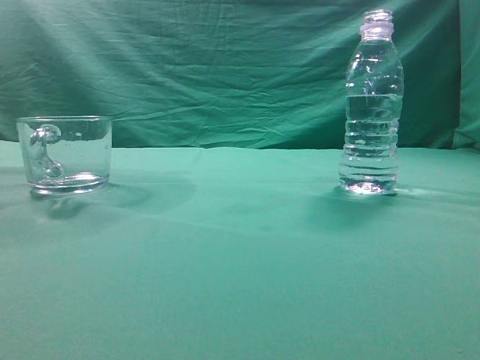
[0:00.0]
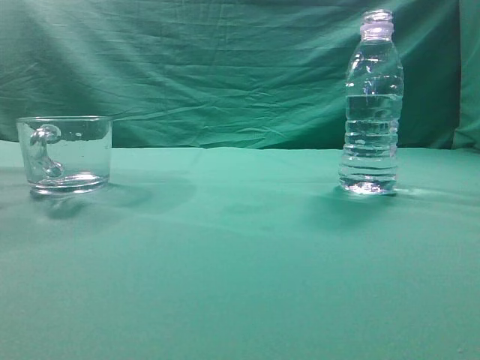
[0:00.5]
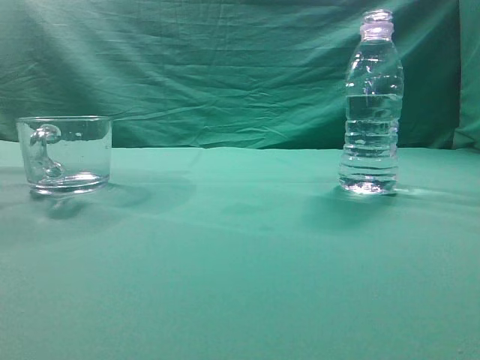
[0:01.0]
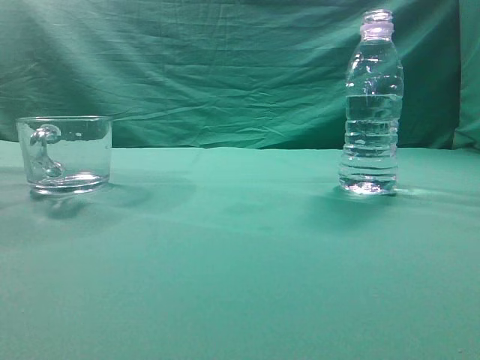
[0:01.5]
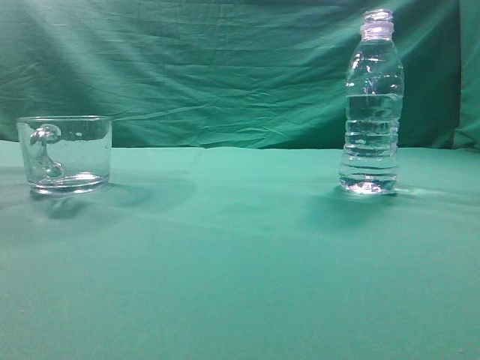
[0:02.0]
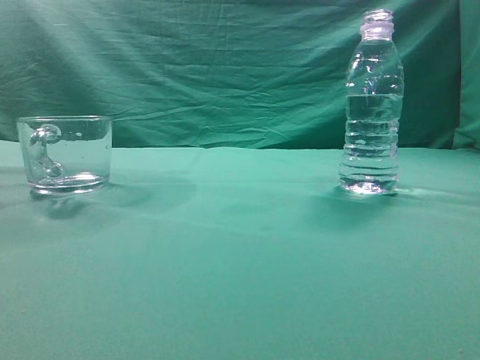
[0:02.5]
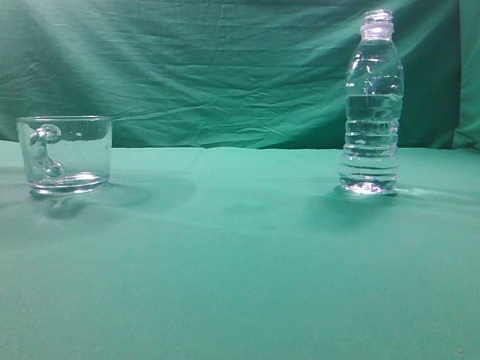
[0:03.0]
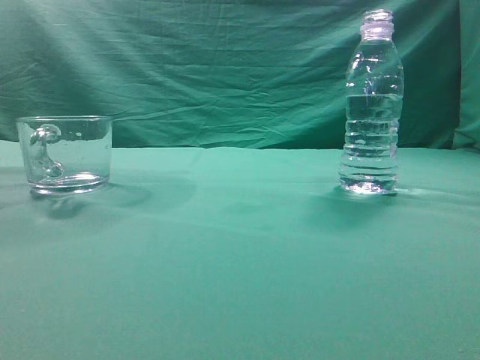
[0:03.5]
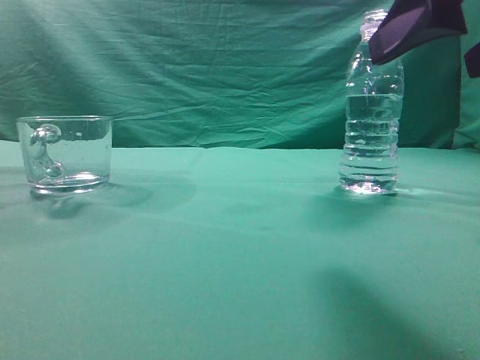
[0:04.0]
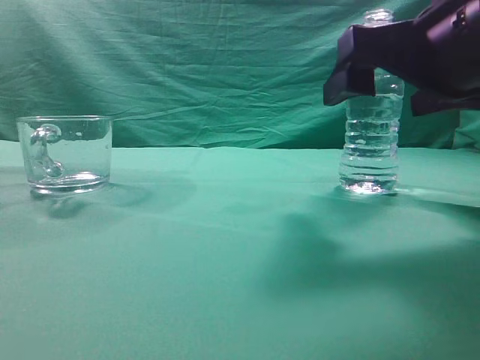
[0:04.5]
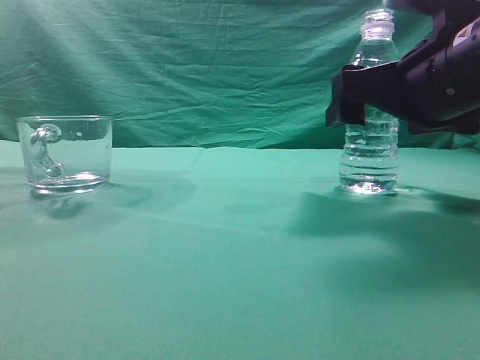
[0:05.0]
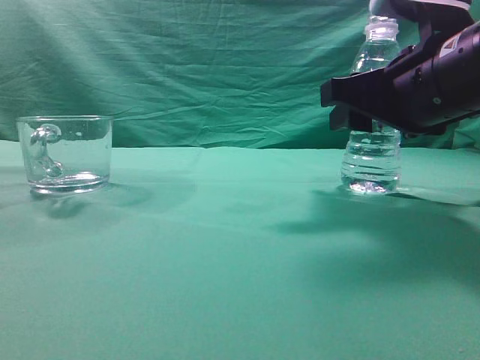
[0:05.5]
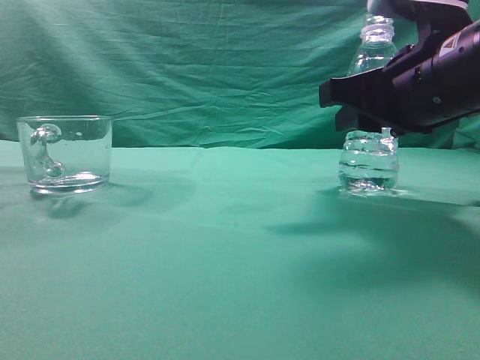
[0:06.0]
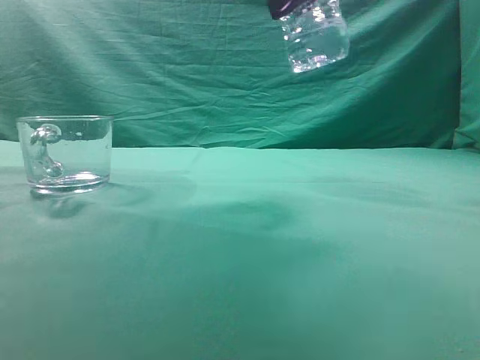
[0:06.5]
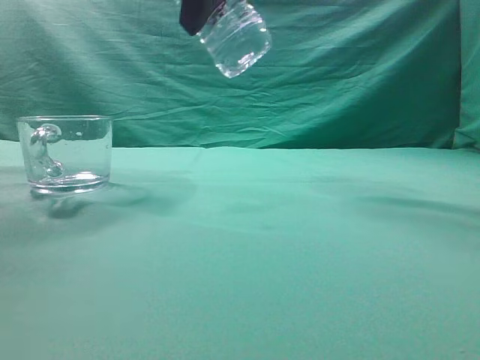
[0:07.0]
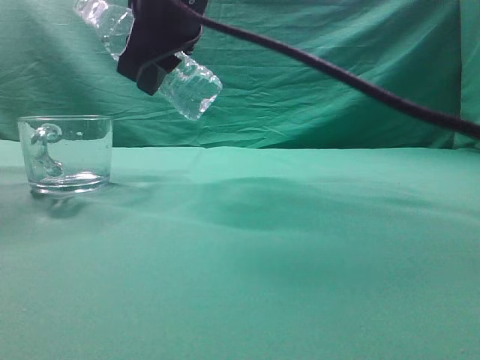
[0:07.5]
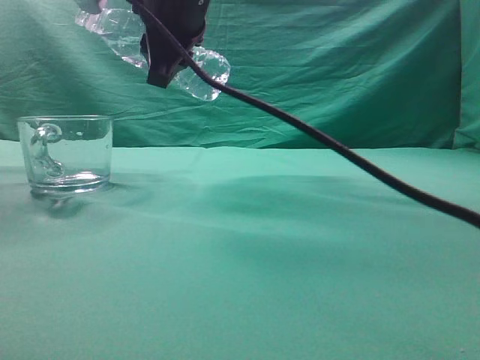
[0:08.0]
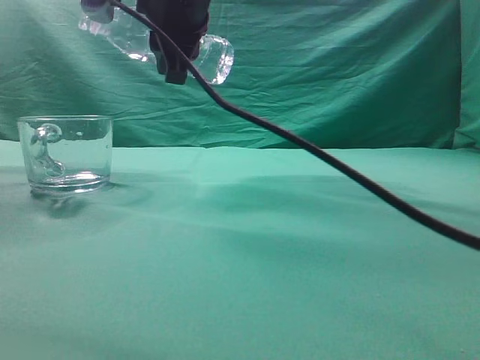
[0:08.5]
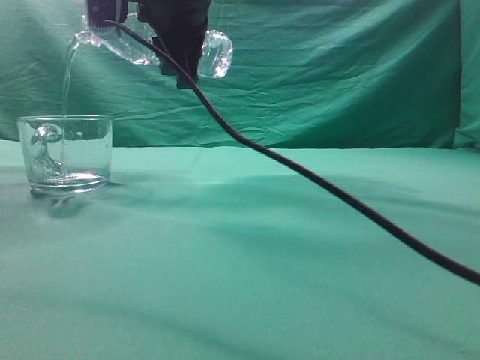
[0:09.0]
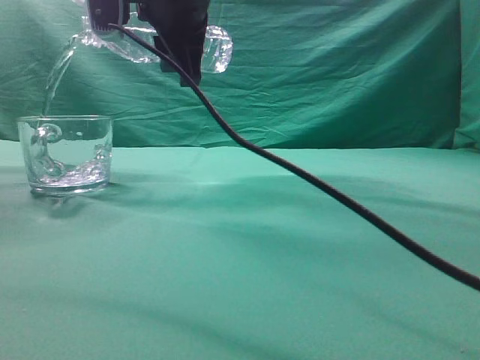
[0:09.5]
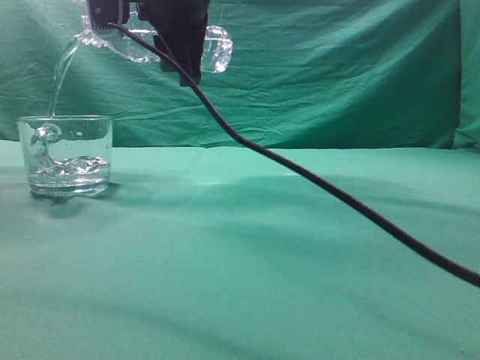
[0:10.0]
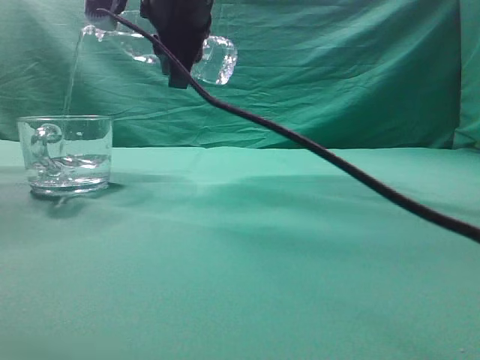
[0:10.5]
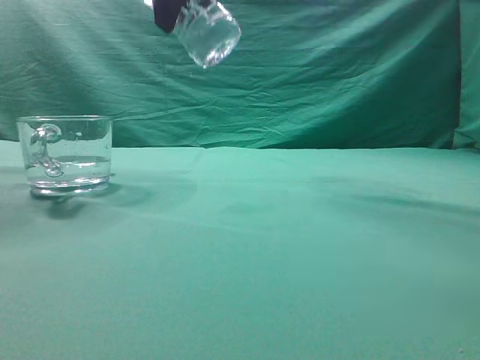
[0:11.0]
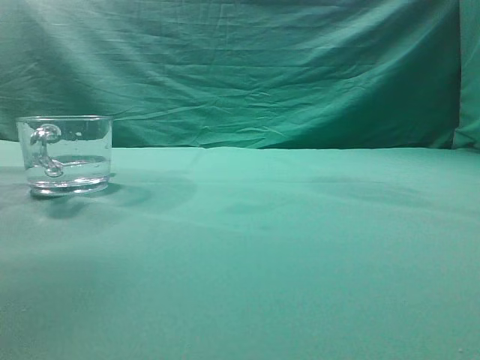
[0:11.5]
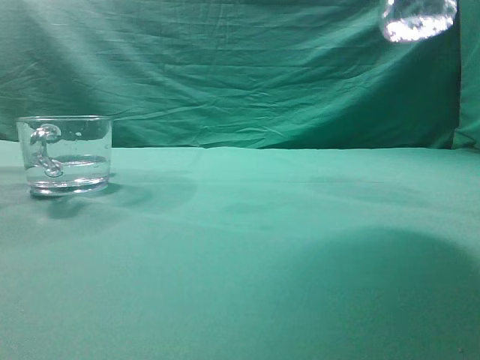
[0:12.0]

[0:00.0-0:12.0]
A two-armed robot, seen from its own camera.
Task of the whole recording: pick up the water bottle and pour the water in it into the glass.
Step, 0:00.0 to 0:06.0: Grasp the mineral water bottle.
Step, 0:06.5 to 0:10.5: Pour water into the teacup.
0:02.0 to 0:04.0: The right gripper heads forward and to the left, covering approximately 15 cm, and opens its fingers.
0:04.0 to 0:06.0: The right gripper is displaced forward and downward by some 10 cm, and closes.
0:06.0 to 0:08.0: The right gripper is displaced to the left and upward by some 25 cm.
0:10.0 to 0:12.0: The right gripper travels to the right and backward by about 25 cm.

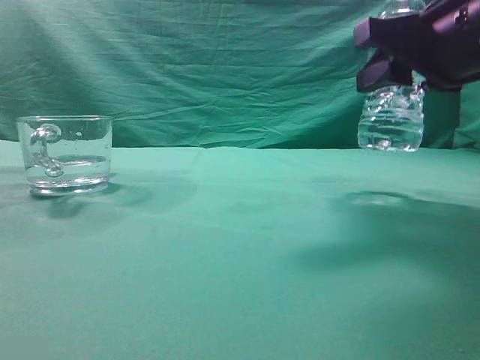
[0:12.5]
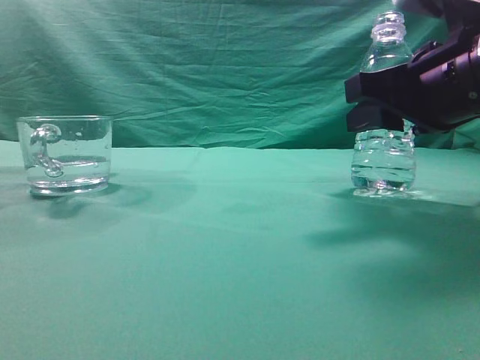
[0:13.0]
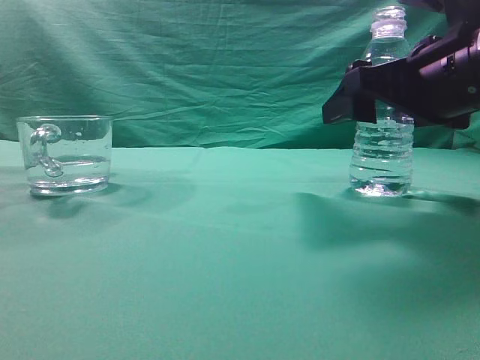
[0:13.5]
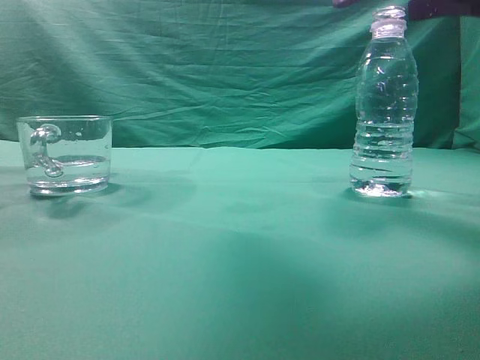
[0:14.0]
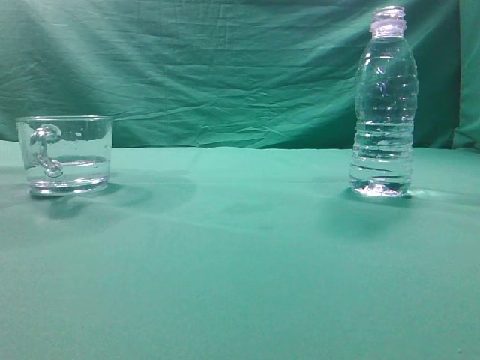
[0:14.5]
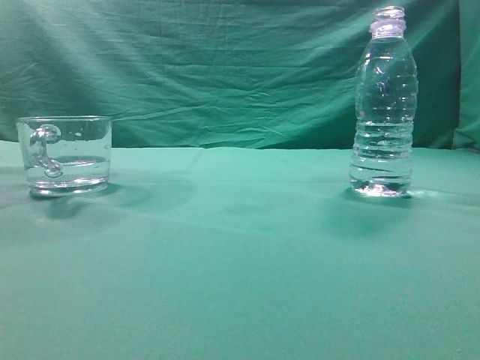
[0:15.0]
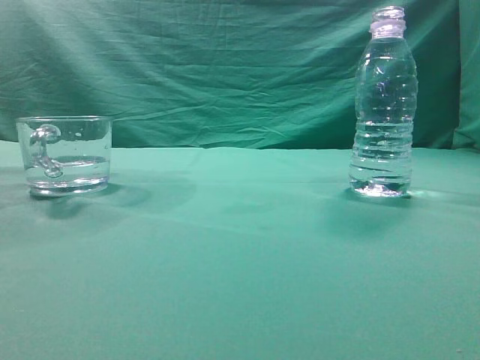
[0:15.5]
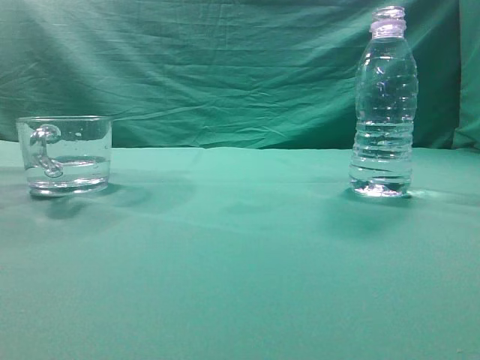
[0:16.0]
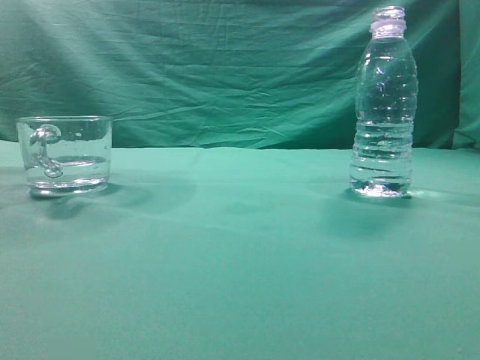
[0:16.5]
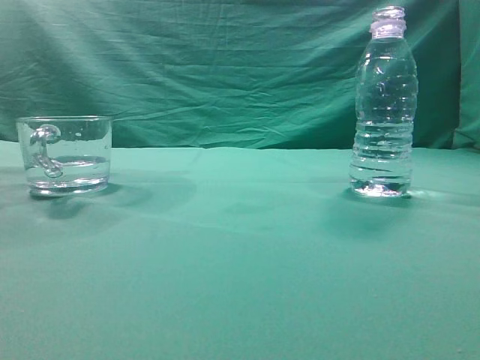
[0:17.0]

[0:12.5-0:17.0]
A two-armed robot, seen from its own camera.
Task of the whole recording: pick up the water bottle and pour the water in it into the glass.
0:12.5 to 0:14.5: The right gripper shifts approximately 20 cm upward and backward, and closes up.
